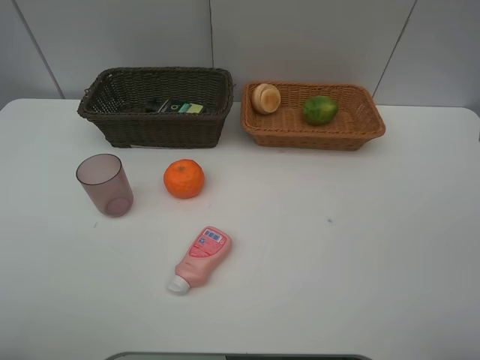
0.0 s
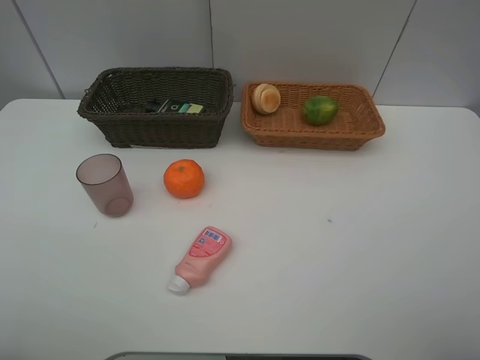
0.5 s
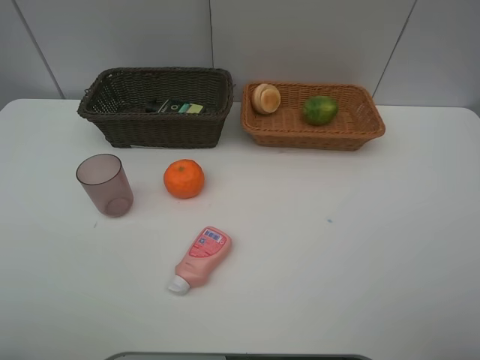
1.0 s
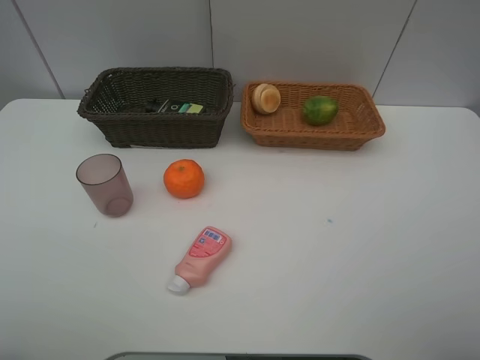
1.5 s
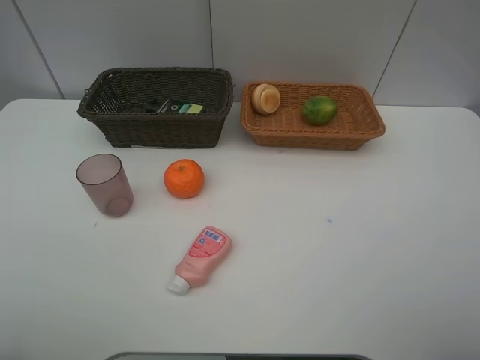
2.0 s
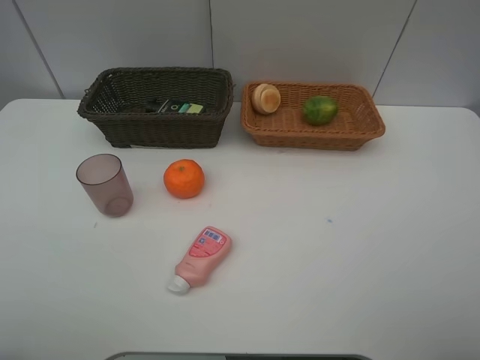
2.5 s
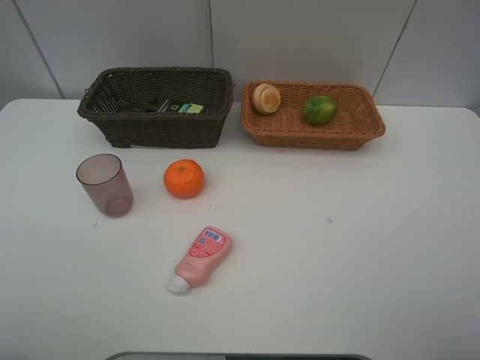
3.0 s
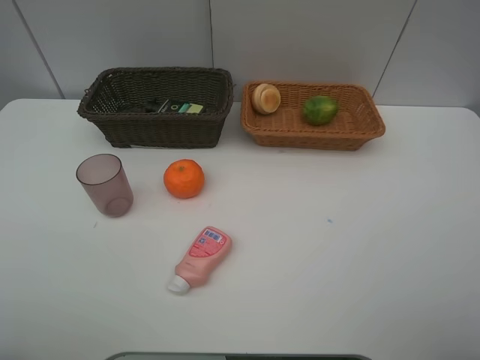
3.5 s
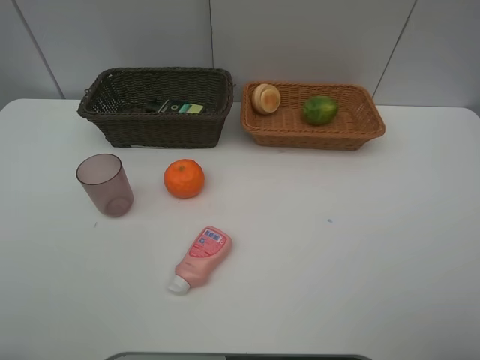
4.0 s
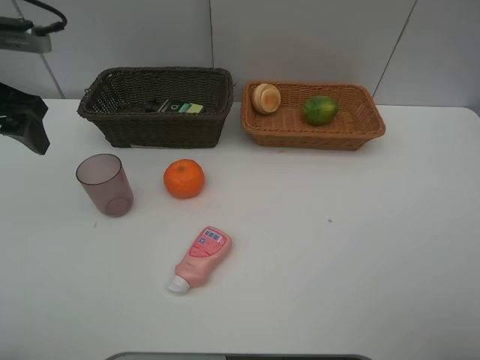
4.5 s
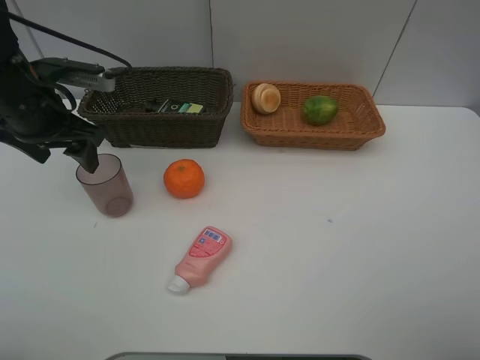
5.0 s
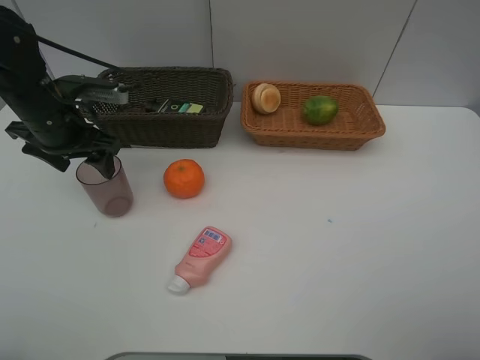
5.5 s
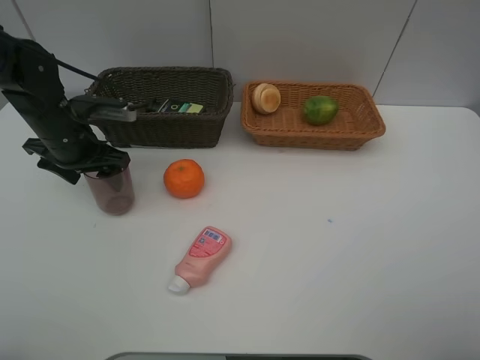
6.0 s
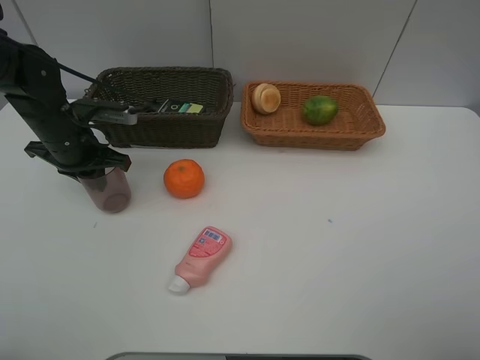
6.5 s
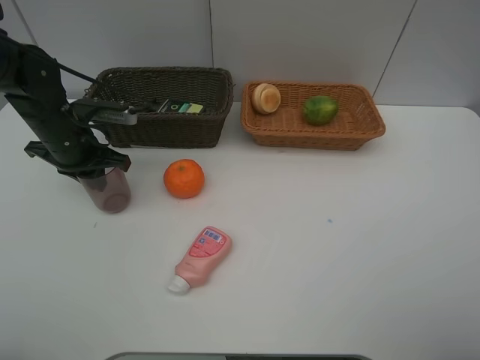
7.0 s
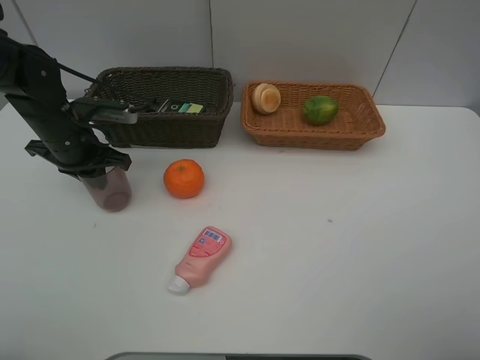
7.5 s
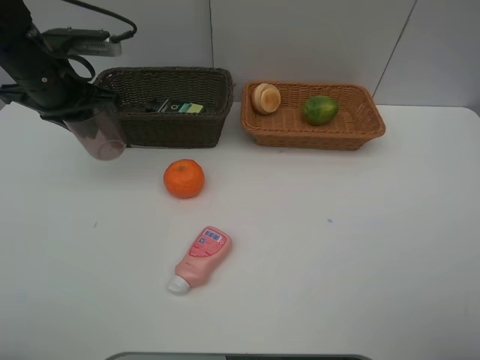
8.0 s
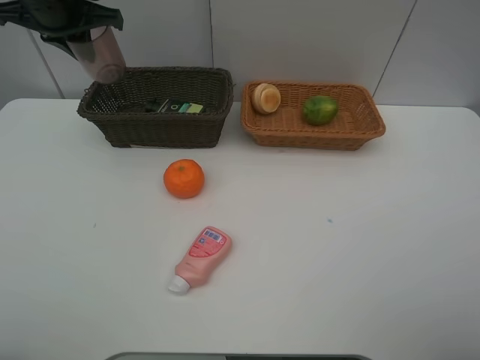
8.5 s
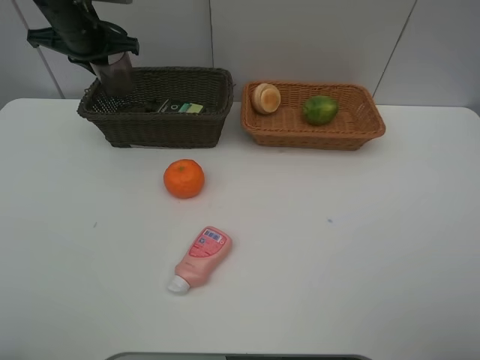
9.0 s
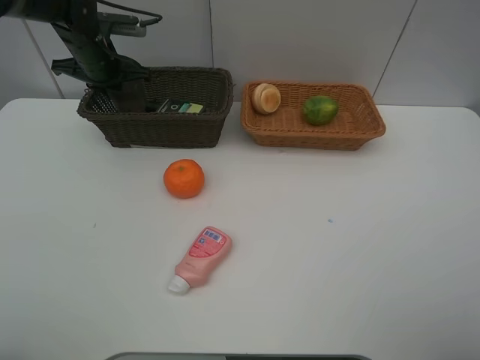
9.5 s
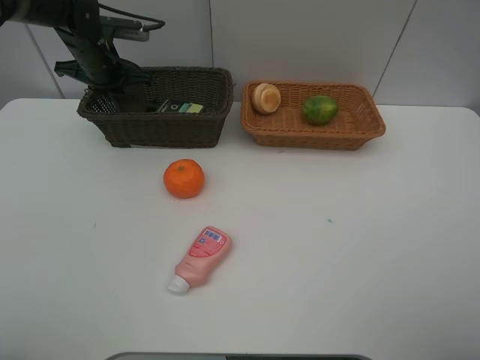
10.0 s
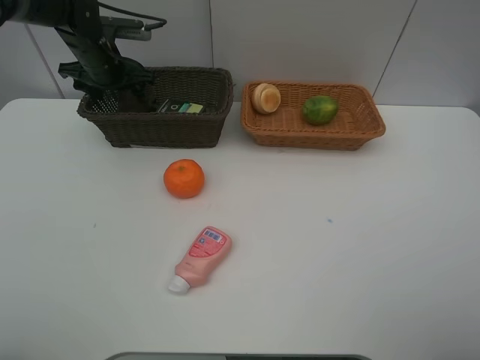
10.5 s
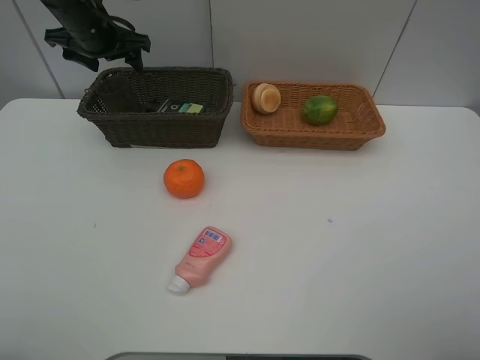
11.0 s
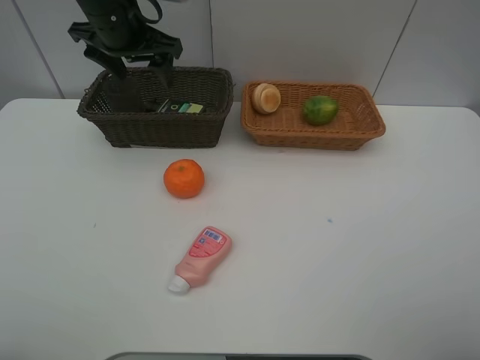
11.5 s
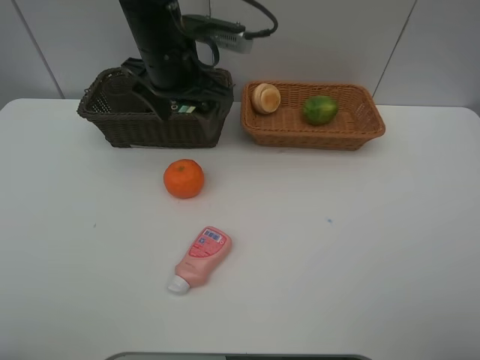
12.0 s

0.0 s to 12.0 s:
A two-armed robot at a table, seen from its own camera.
Task of the whole recording: place multiple objects separately in different baskets.
4.0 to 6.0 s: The left gripper goes approximately 30 cm forward and downward.
6.0 to 8.0 s: The left gripper goes roughly 10 cm upward, and closes its fingers.
8.0 to 10.0 s: The left gripper goes about 15 cm forward and downward.
10.0 to 12.0 s: The left gripper is displaced to the right, backward and upward by about 20 cm, and opens its fingers.

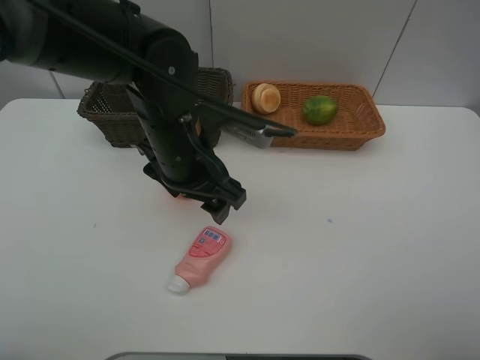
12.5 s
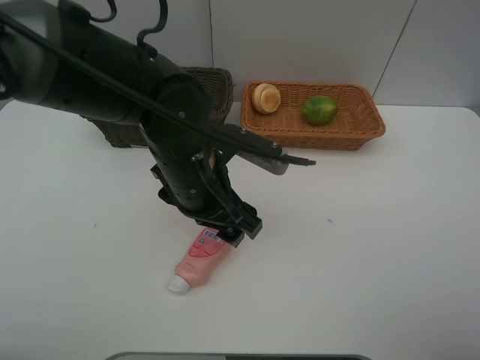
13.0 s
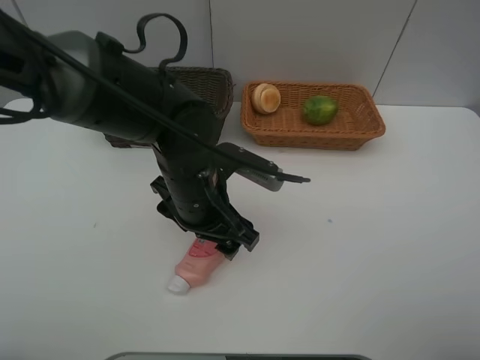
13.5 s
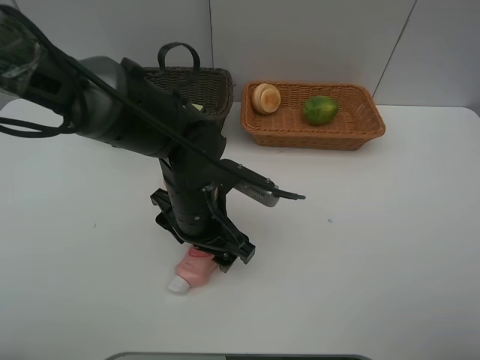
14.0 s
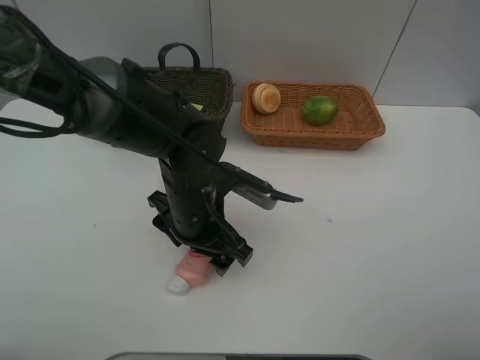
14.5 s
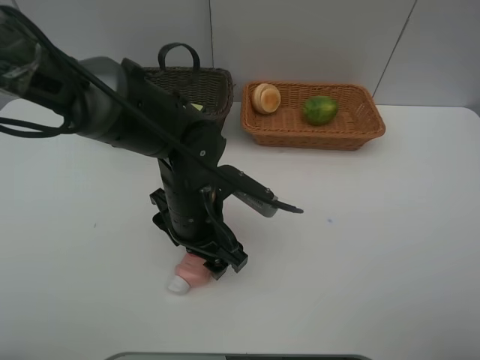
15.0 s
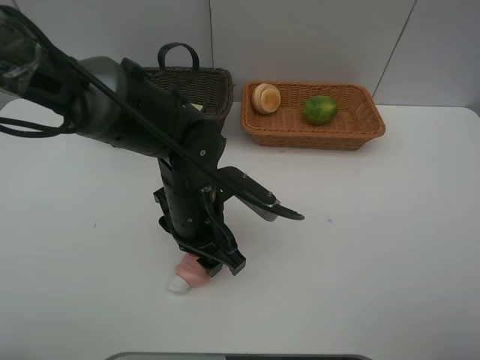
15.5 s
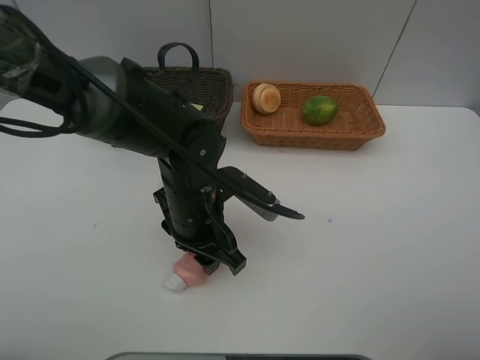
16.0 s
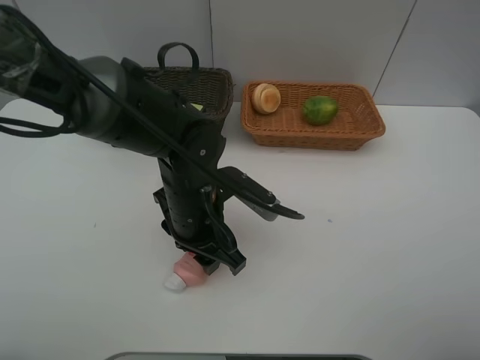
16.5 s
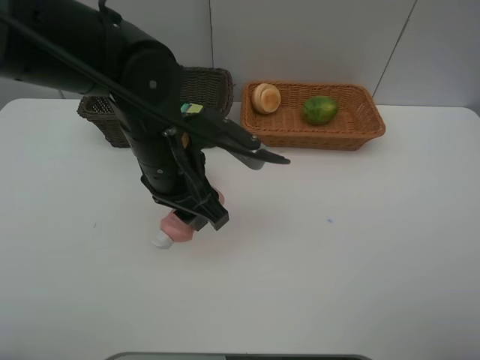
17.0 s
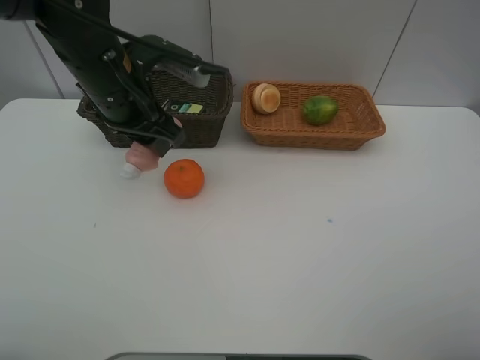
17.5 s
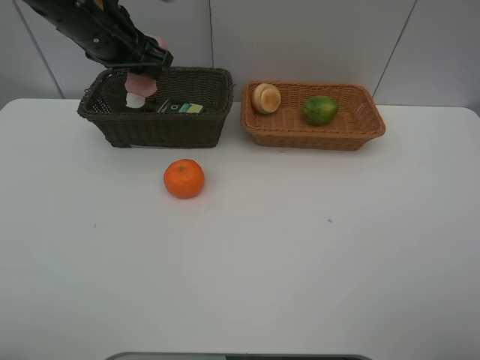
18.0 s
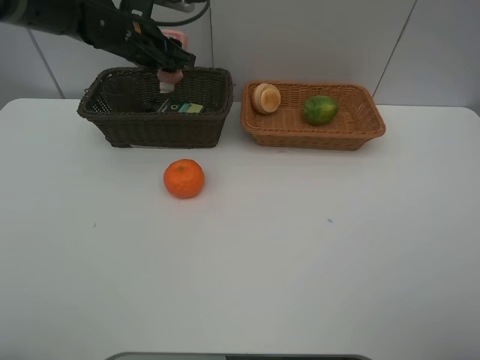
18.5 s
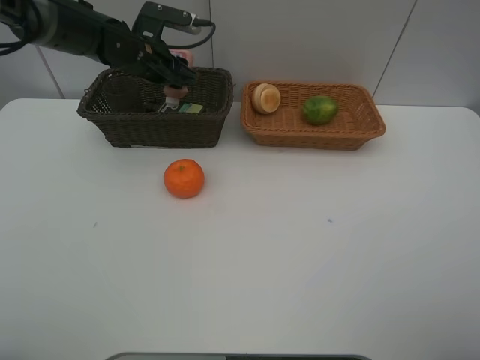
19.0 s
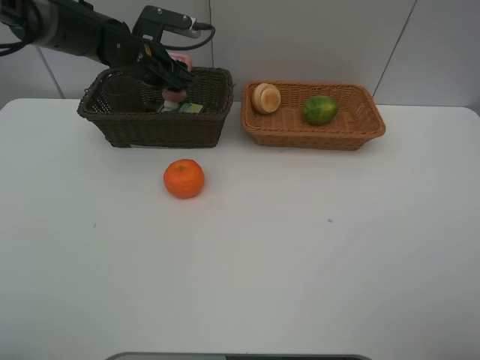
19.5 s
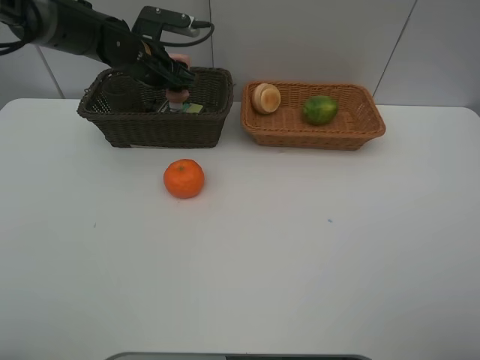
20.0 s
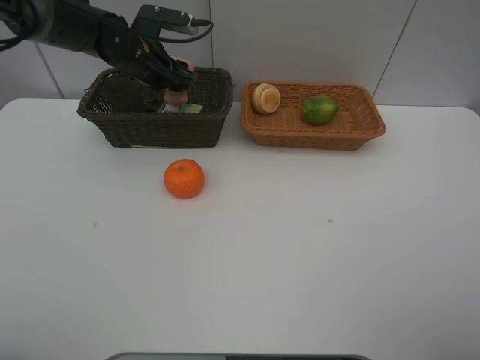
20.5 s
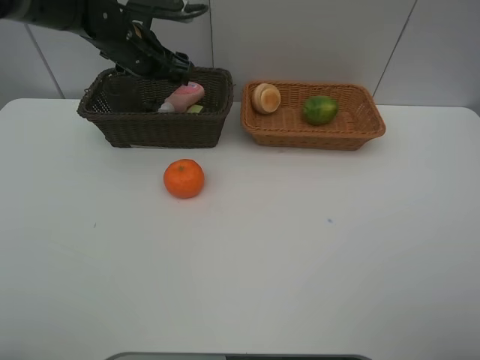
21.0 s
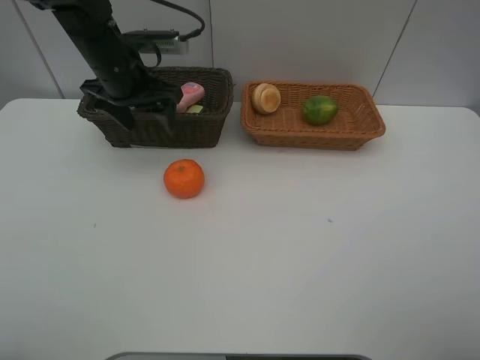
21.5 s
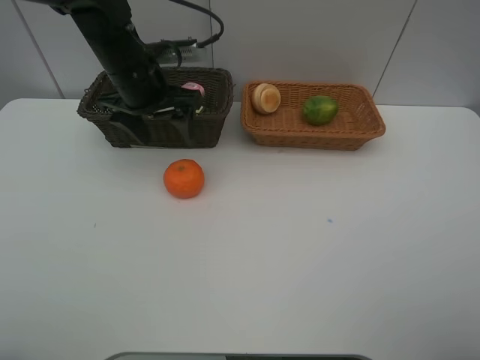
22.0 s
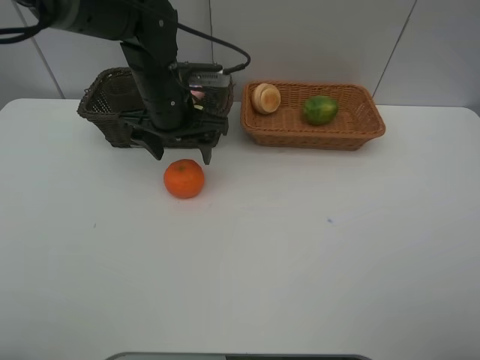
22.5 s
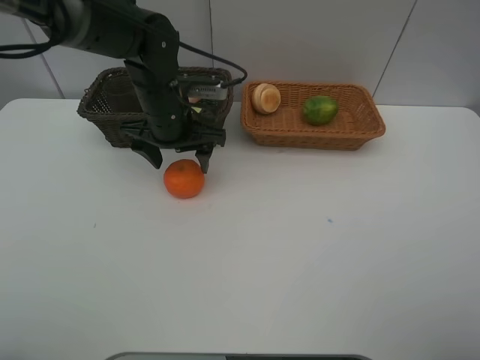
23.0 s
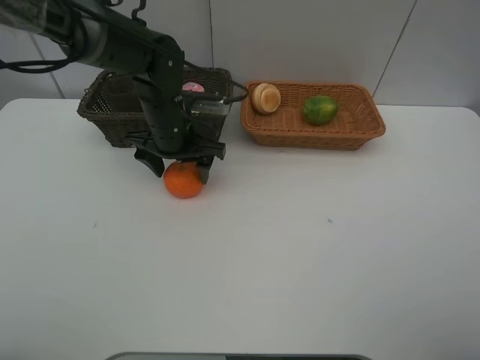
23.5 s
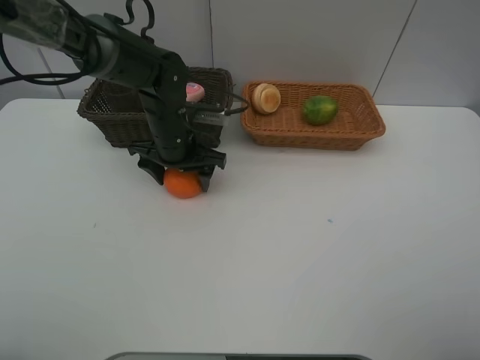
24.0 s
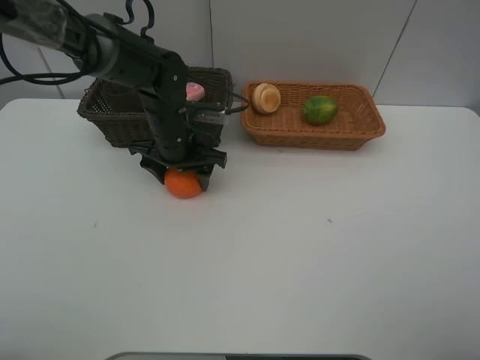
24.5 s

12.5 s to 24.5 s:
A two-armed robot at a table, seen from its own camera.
Task of the whole recording: place multiple objects separately in different baskets.
12.5 to 14.5 s: The left gripper travels downward by about 5 cm.
14.5 to 16.5 s: The left gripper closes.
16.5 to 18.5 s: The left gripper heads forward, to the left and upward, covering about 25 cm.
18.5 to 20.5 s: The grippers move only a little.
20.5 to 22.5 s: The left gripper goes roughly 10 cm backward and to the right.
22.5 to 24.5 s: The left gripper heads downward, covering about 5 cm.

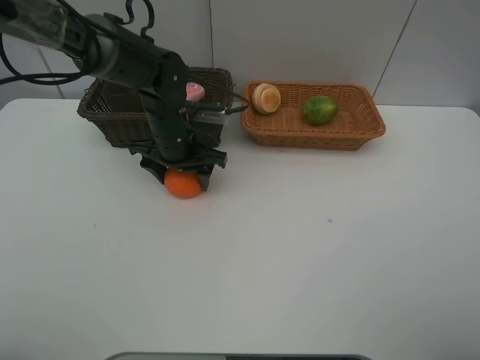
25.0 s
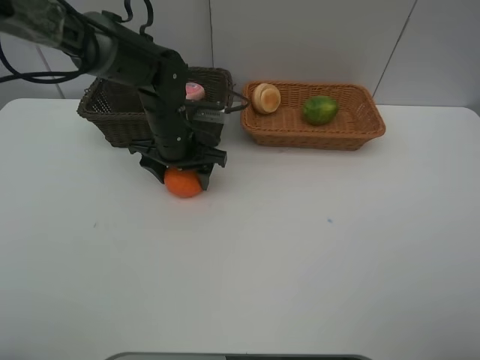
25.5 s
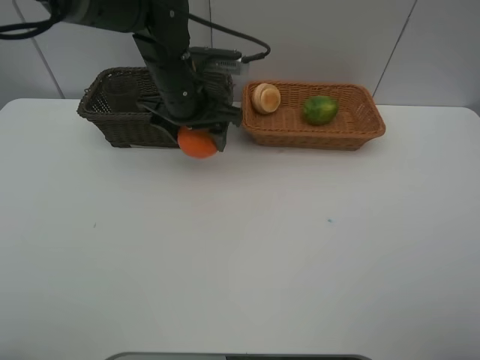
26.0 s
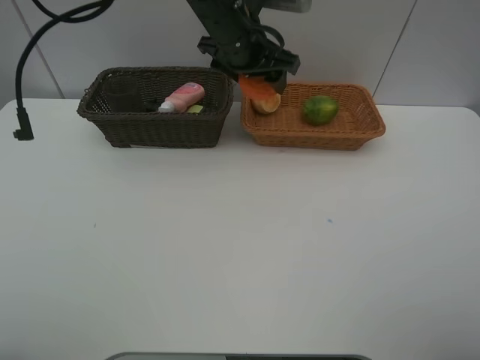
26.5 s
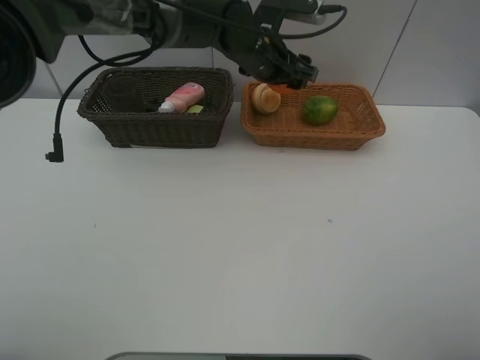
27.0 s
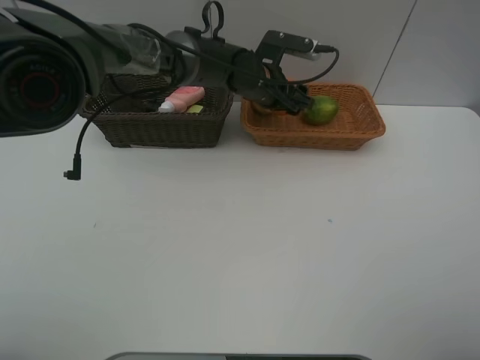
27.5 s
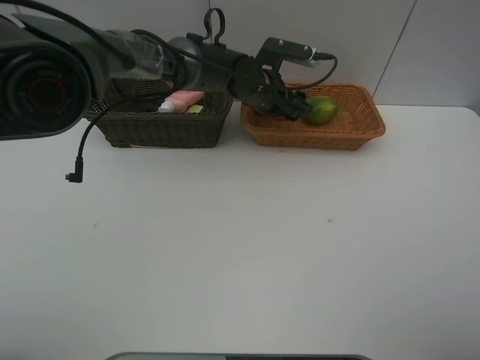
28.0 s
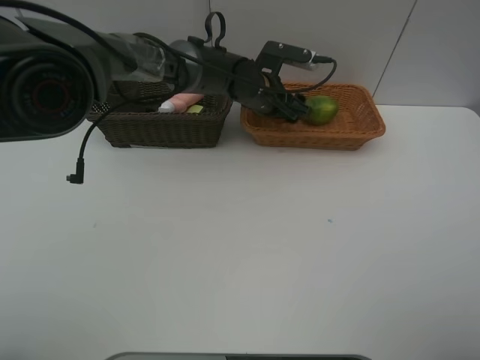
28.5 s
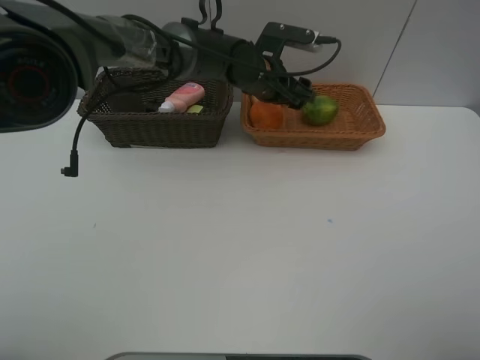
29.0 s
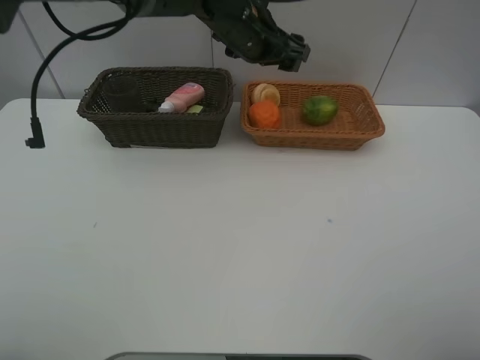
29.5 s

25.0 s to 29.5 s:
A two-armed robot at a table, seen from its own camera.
Task of the whole recording: place multiple objects separately in different baskets.
25.0 to 27.0 s: The left gripper shifts approximately 15 cm to the right, upward and forward.
27.0 to 29.5 s: The left gripper shifts by about 5 cm.
